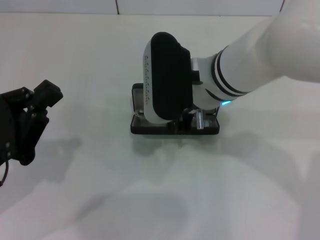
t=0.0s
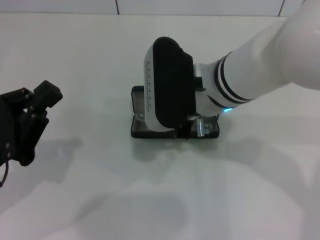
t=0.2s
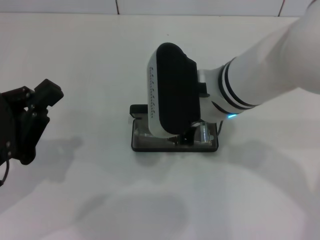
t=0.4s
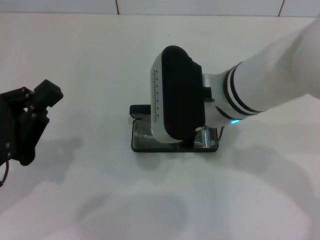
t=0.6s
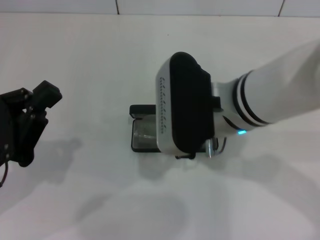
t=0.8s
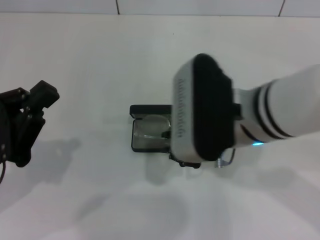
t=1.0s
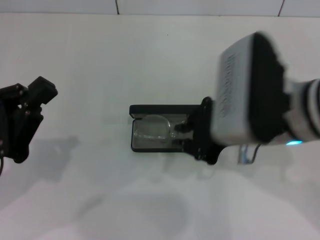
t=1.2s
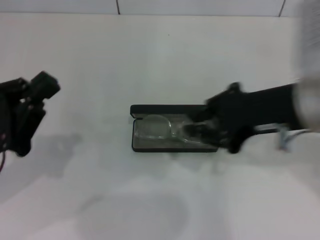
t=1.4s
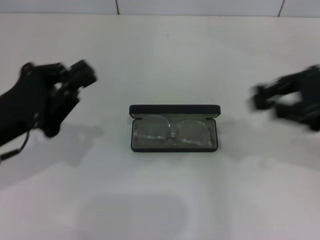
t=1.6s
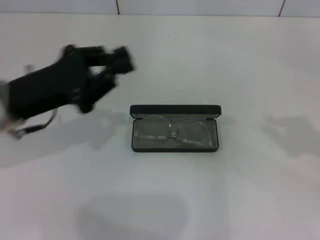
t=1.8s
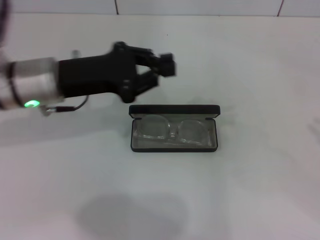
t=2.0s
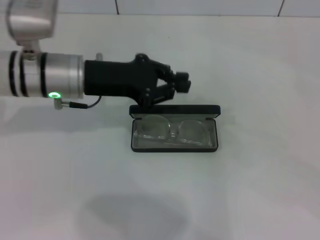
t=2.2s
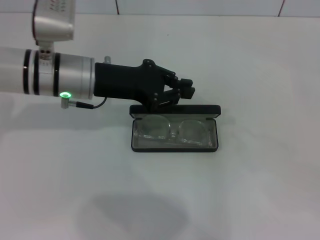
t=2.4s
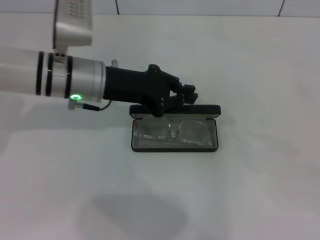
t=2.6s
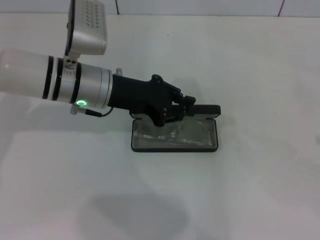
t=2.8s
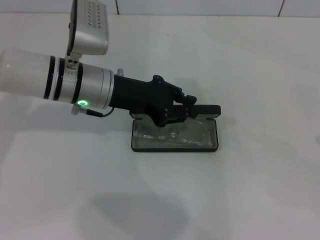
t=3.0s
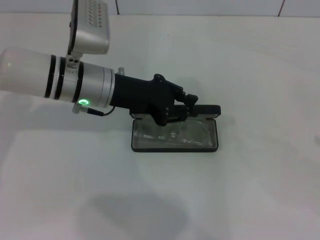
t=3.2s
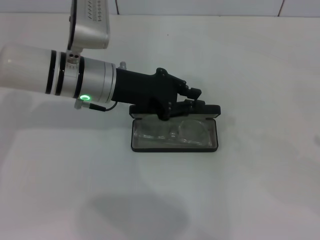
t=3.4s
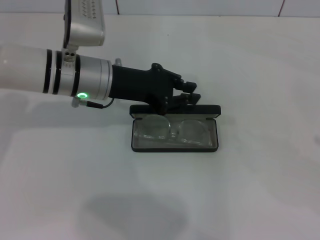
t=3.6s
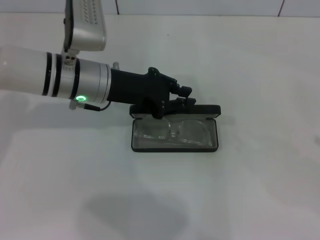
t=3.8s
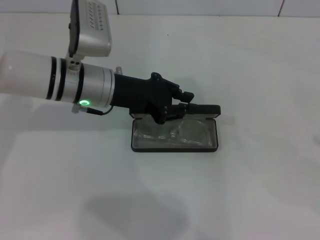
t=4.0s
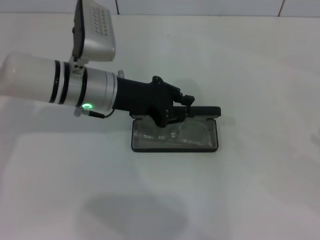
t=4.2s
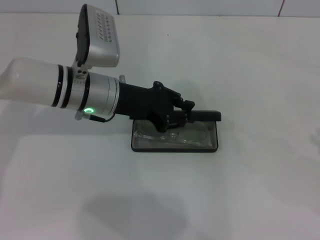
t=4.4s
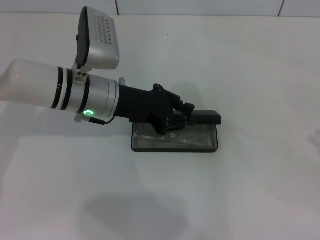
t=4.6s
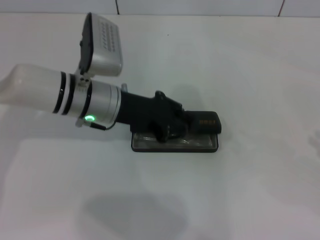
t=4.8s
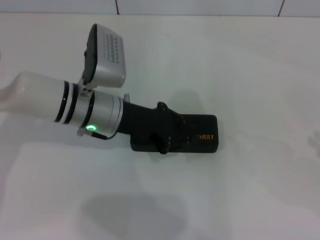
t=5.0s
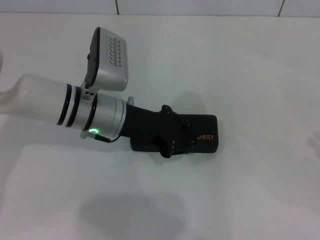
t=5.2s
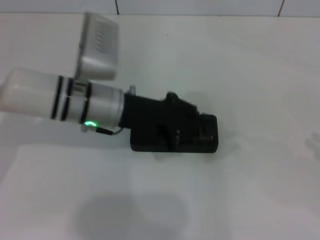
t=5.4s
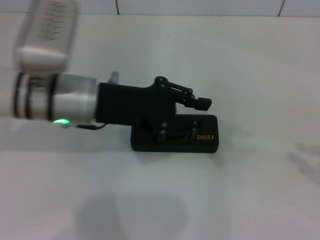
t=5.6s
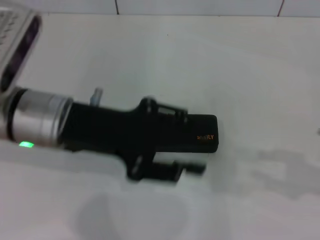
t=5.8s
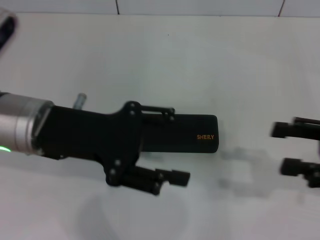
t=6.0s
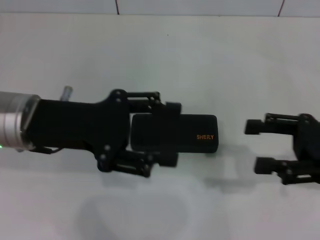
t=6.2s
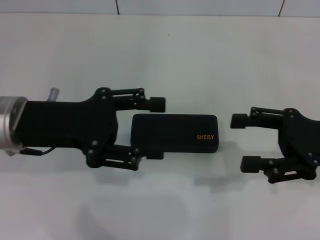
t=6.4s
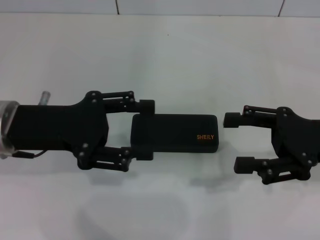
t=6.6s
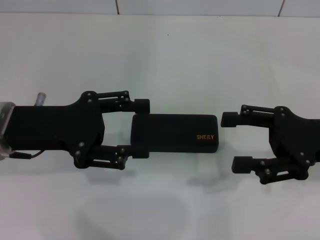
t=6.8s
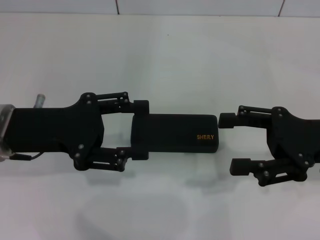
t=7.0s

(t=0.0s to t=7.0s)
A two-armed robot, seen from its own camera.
Step, t=0.8s - t=4.8s: Close the glasses case with your left hand.
t=0.0s - t=1.4s: The right gripper travels to the right, backward and upward by roughly 15 cm.
t=1.4s - t=2.8s: The left gripper moves forward and to the right, about 20 cm. The right gripper is displaced to the right by some 25 cm.
t=2.8s - t=4.2s: Both grippers stay about where they are.
t=4.2s - t=5.6s: The left gripper changes place by some 5 cm.
t=5.6s - t=7.0s: The left gripper shifts some 10 cm to the left, and opens up. Meanwhile the right gripper moves to the left and forward, some 15 cm, and opens its fingers.

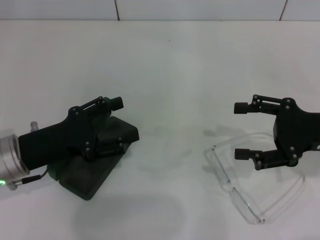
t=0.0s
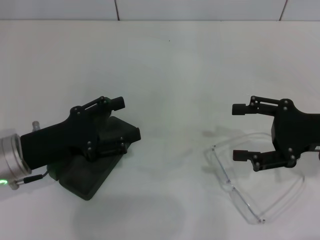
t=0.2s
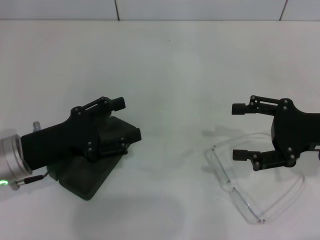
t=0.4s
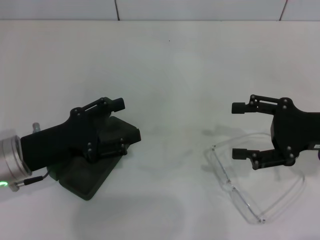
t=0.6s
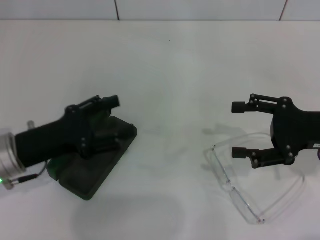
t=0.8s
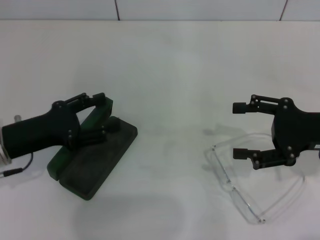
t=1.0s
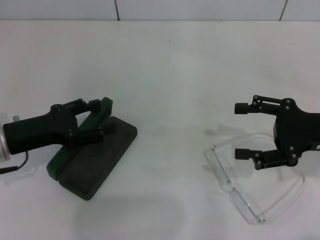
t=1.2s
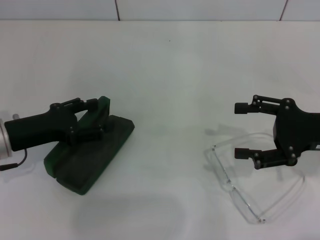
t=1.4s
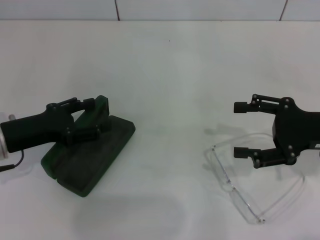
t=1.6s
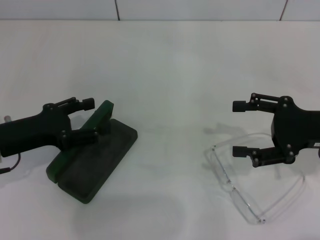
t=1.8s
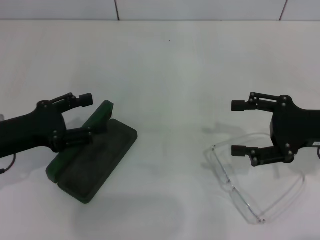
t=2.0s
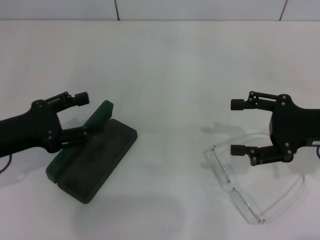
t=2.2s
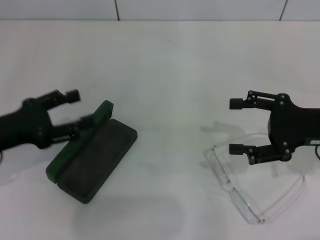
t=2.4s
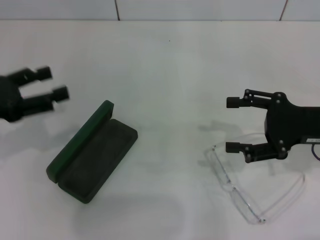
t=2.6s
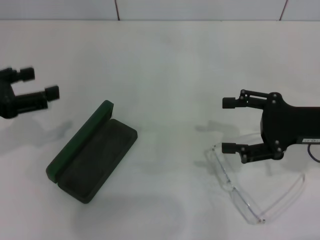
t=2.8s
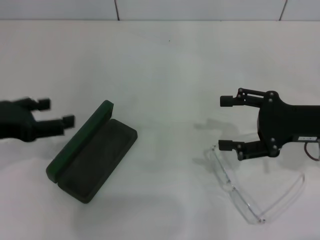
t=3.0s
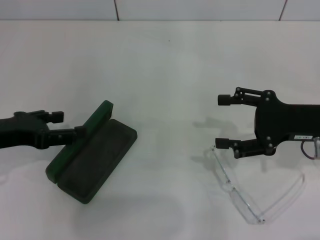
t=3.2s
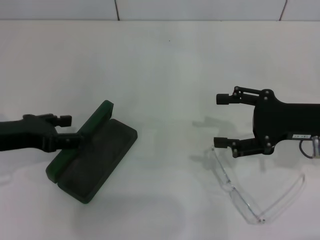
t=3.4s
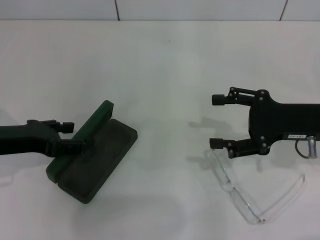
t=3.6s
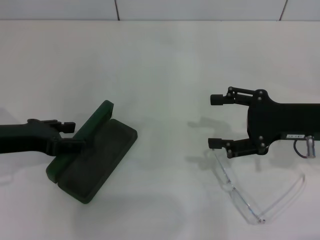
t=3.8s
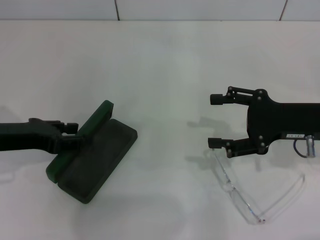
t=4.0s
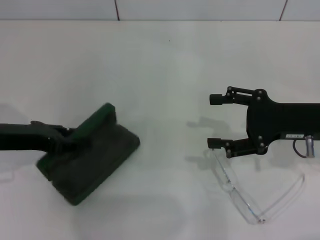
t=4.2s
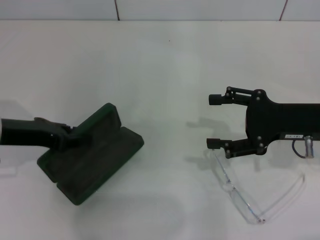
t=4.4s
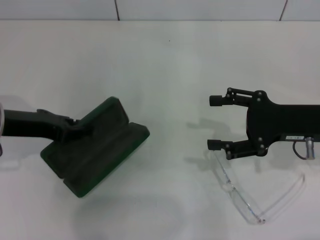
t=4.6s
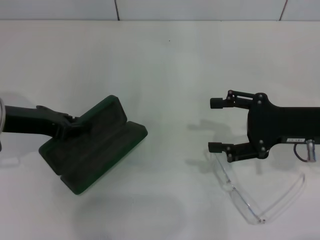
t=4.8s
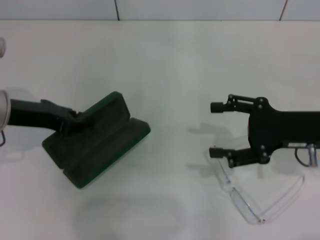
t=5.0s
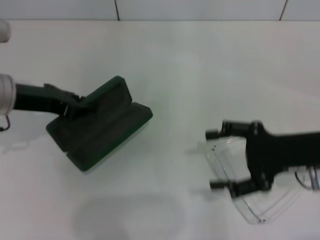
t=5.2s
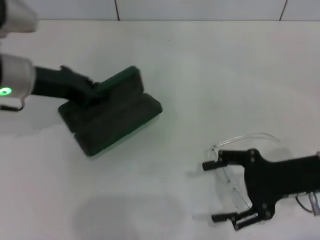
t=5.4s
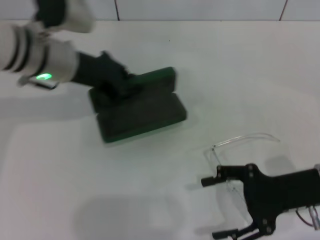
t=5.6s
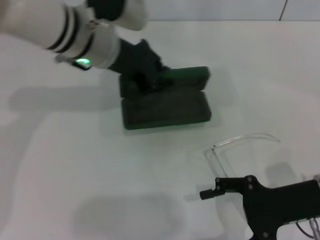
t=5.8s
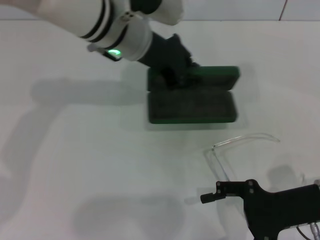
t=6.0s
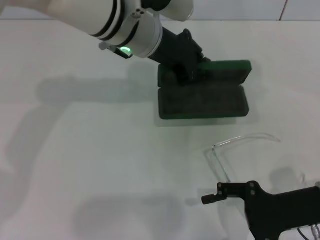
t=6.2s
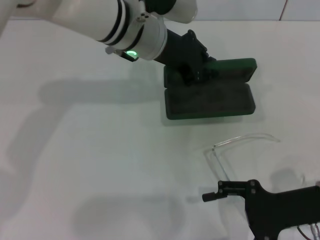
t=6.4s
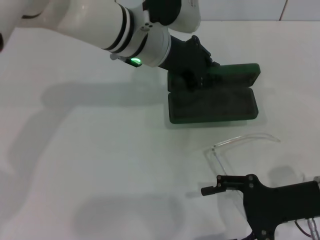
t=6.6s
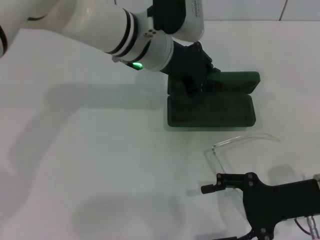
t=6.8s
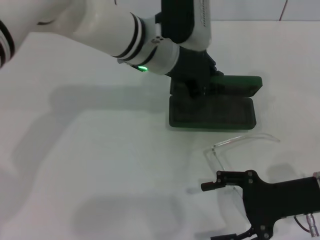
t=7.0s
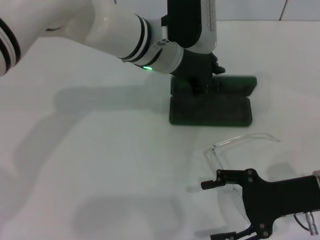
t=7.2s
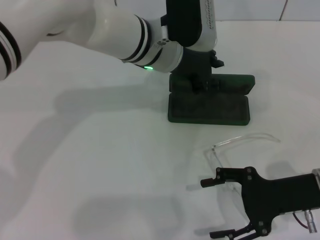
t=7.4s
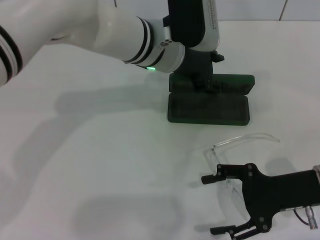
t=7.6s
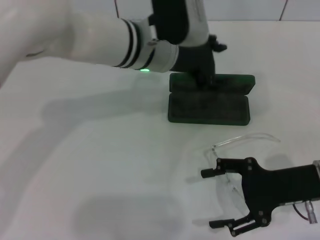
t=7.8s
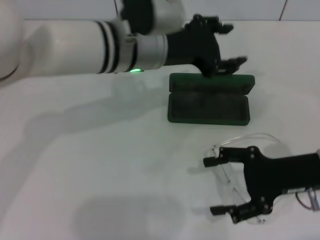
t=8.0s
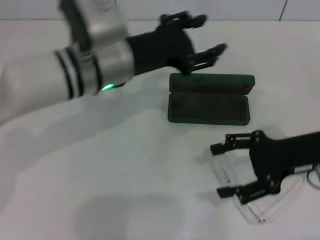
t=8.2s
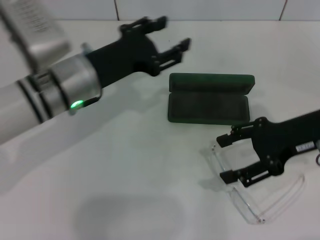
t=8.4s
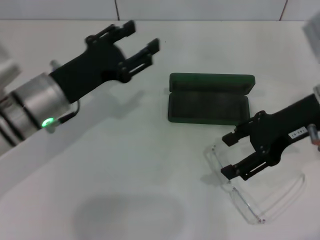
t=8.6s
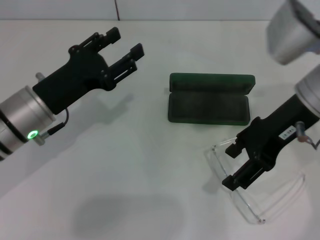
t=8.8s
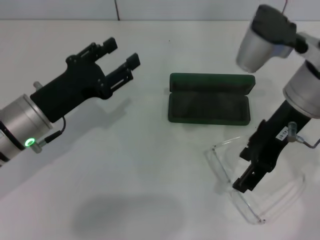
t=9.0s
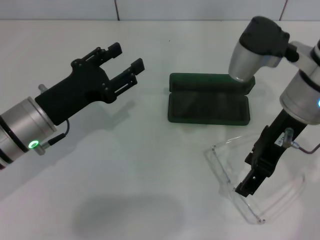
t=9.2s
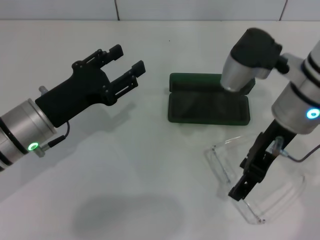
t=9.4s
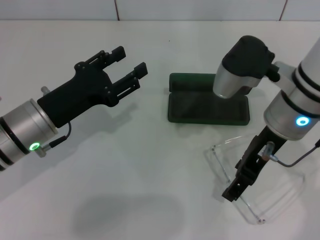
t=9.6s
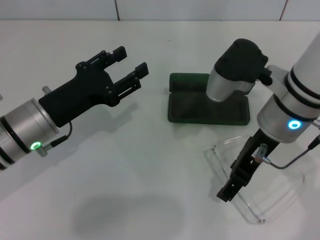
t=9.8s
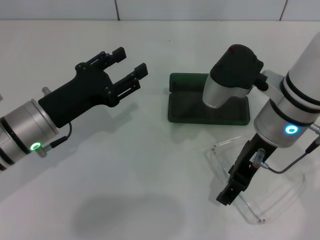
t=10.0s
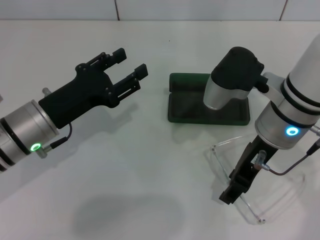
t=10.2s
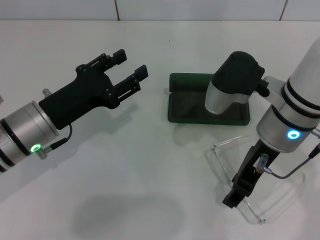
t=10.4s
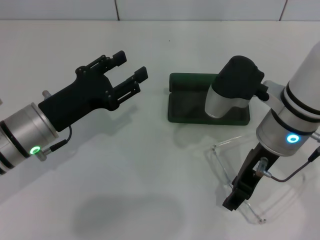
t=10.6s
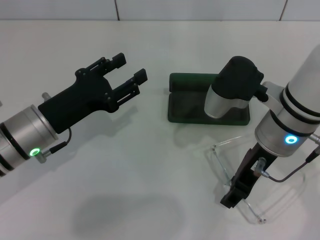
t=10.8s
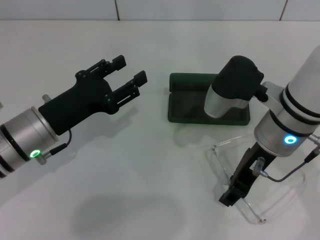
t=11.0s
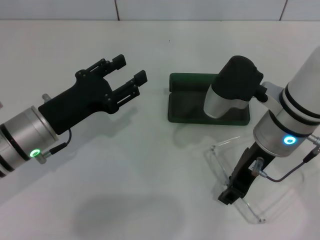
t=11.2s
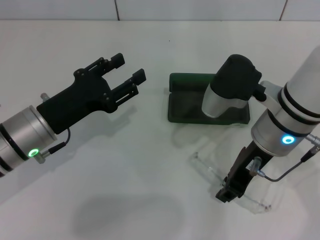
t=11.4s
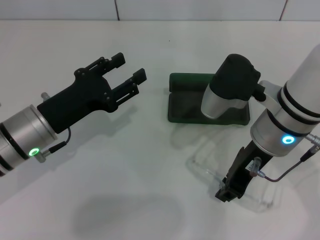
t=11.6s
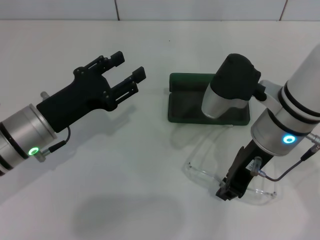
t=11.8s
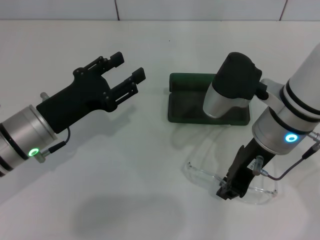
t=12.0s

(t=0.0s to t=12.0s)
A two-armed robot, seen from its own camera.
Step, t=0.0s - t=4.0s: Grab the glasses case with your left hand.
Step, t=4.4s - t=7.4s: Place the glasses case in the center of the table with your left hand.
Step, t=7.6s - t=11.8s: Grab the eyeglass frame with your right hand.
t=0.0s - t=1.6s: The grippers move only a little.
t=1.6s - t=3.0s: The left gripper is displaced upward by about 10 cm.
t=3.0s - t=4.4s: The left gripper changes place by about 5 cm, and closes its fingers.
t=4.4s - t=6.0s: The right gripper goes about 5 cm backward, while the left gripper is displaced to the right and forward by approximately 25 cm.
t=6.0s - t=7.6s: The left gripper moves roughly 5 cm.
t=7.6s - t=9.0s: The left gripper shifts roughly 20 cm to the left and backward. Meanwhile the right gripper moves upward, to the left and forward, roughly 20 cm.
t=9.0s - t=10.4s: The right gripper moves downward, roughly 5 cm.
t=10.4s - t=12.0s: The right gripper closes up.

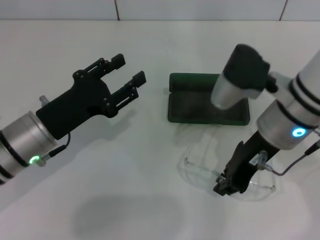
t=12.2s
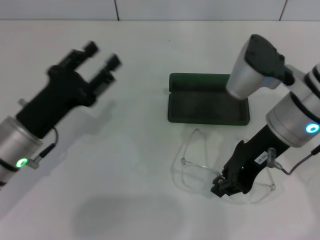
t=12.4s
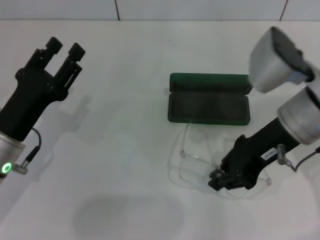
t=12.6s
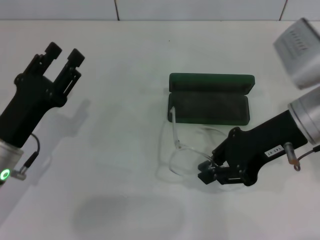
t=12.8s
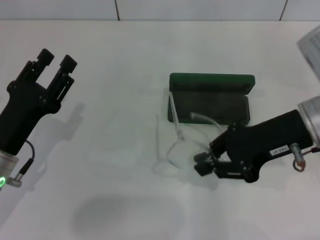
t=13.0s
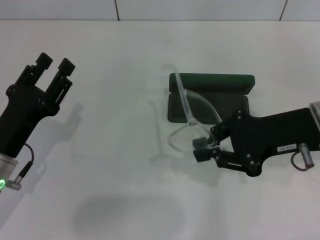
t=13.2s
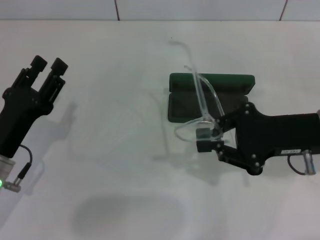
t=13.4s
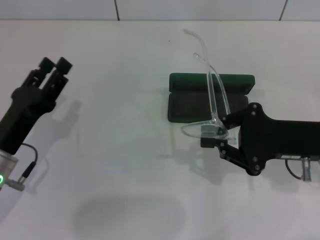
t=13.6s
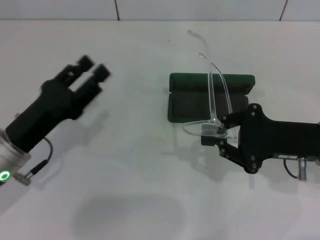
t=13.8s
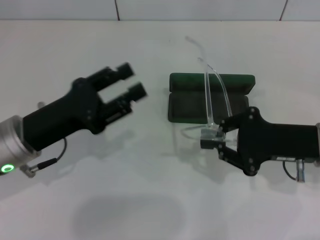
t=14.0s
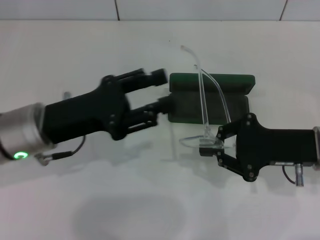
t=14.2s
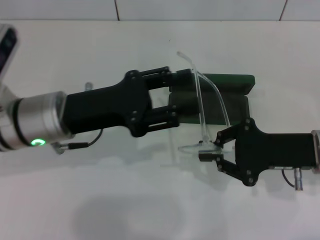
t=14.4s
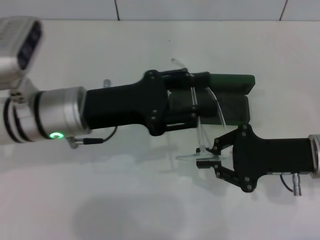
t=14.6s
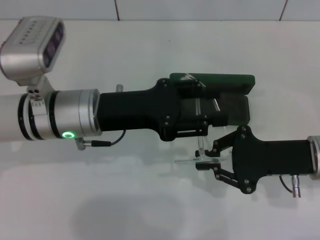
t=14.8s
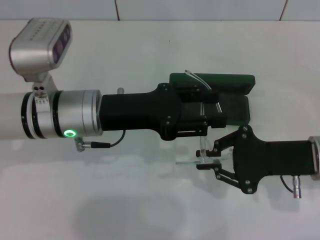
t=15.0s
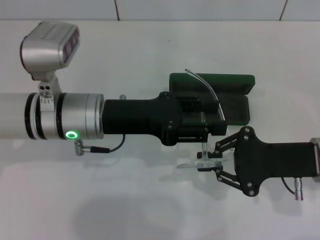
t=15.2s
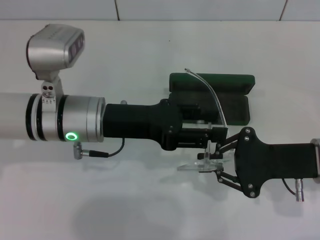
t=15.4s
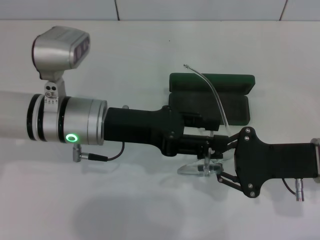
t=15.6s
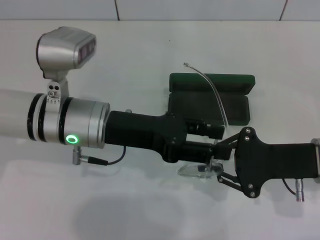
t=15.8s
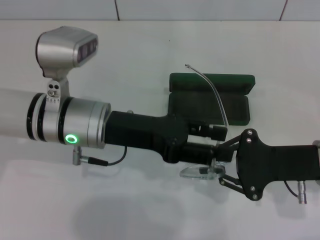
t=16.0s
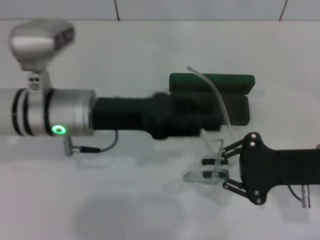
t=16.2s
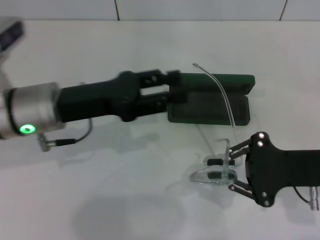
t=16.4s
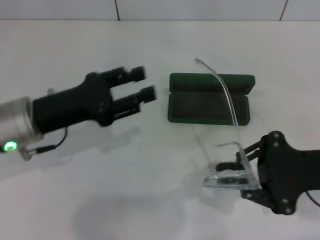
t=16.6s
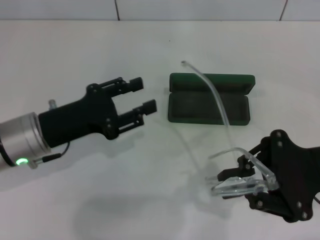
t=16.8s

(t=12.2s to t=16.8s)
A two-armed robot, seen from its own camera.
t=12.2s - t=13.8s: The right gripper moves to the right and downward, roughly 10 cm.
t=13.8s - t=15.2s: The left gripper heads to the right, forward and upward, covering roughly 15 cm.
t=15.2s - t=16.8s: The left gripper shifts some 10 cm to the left.
